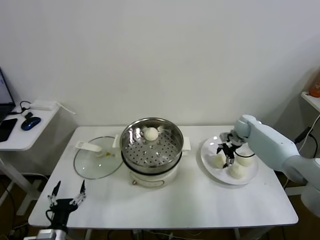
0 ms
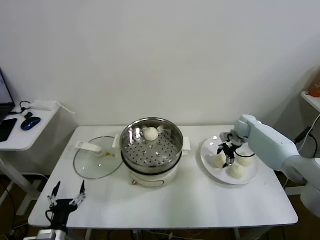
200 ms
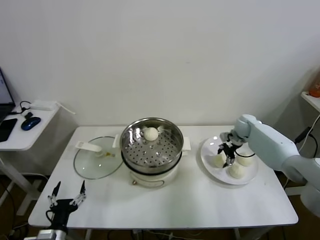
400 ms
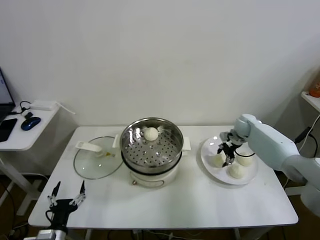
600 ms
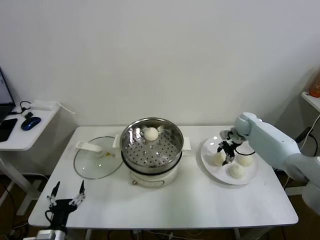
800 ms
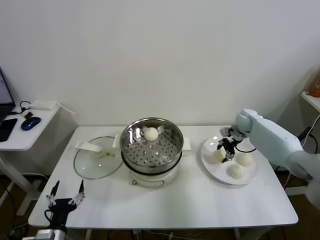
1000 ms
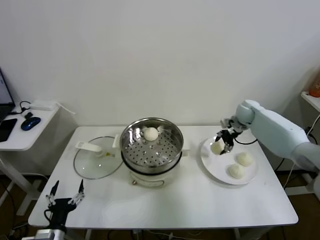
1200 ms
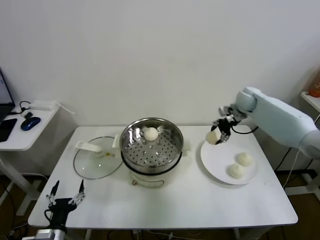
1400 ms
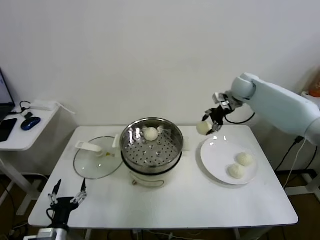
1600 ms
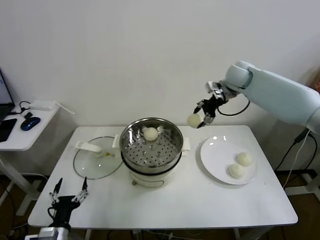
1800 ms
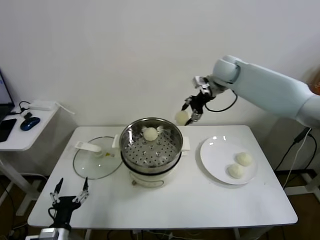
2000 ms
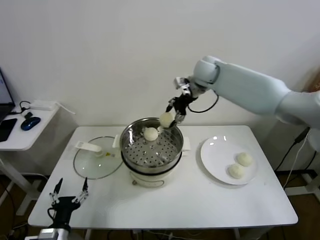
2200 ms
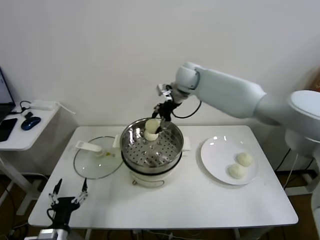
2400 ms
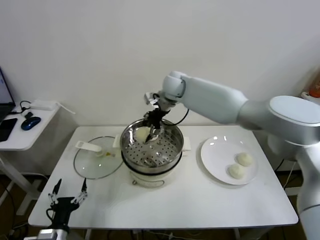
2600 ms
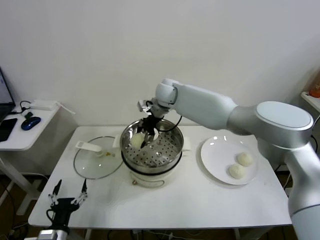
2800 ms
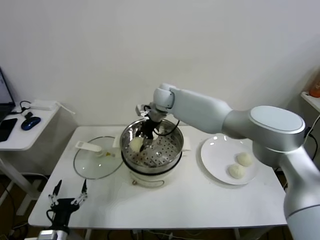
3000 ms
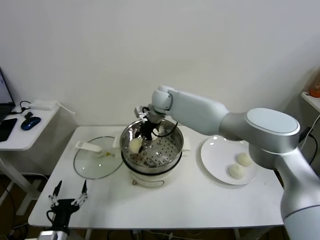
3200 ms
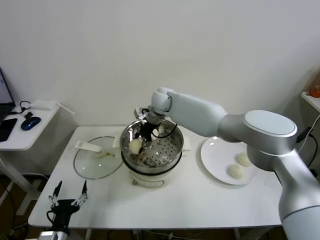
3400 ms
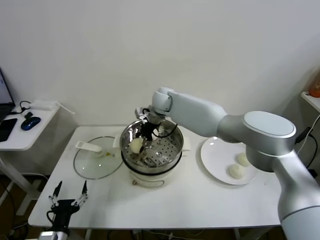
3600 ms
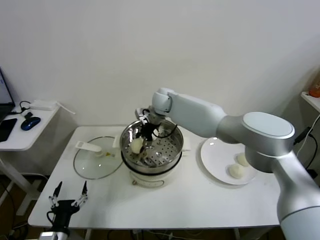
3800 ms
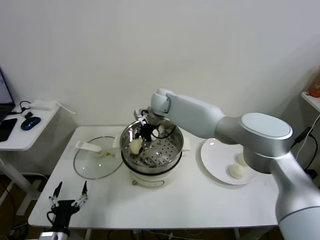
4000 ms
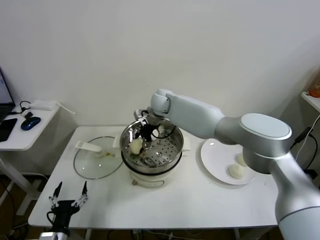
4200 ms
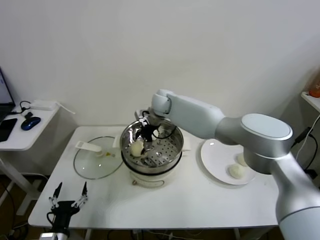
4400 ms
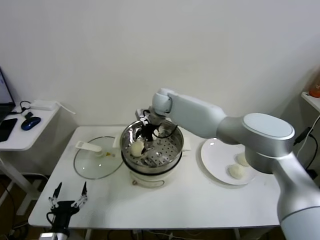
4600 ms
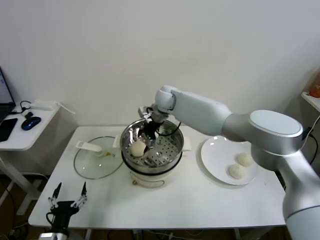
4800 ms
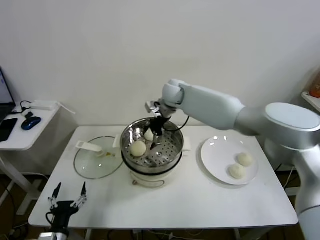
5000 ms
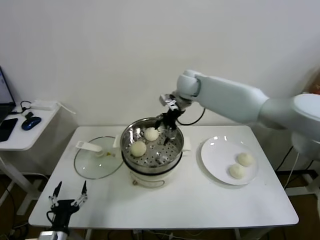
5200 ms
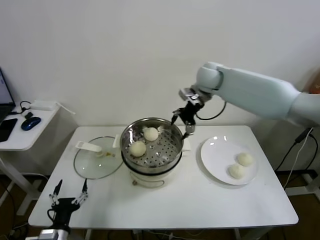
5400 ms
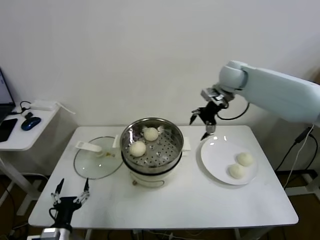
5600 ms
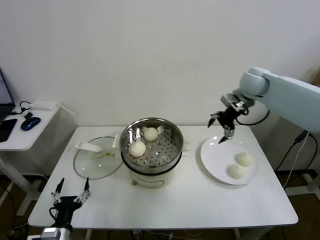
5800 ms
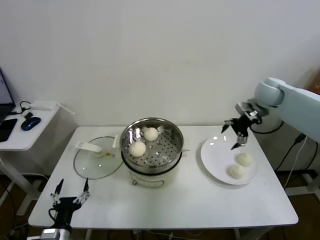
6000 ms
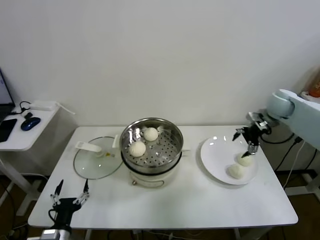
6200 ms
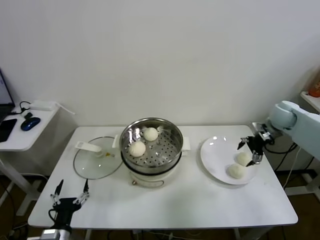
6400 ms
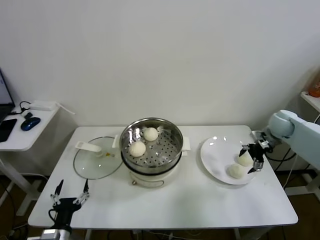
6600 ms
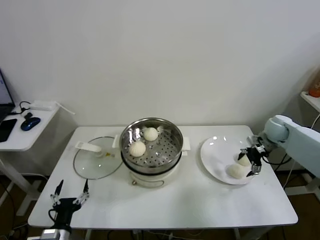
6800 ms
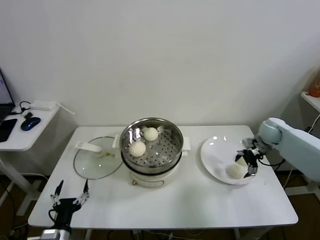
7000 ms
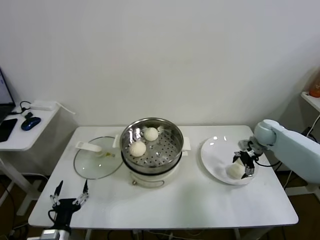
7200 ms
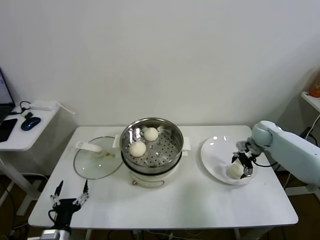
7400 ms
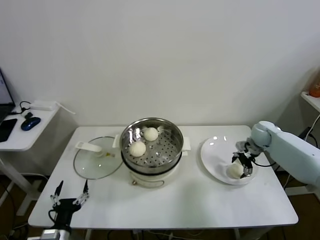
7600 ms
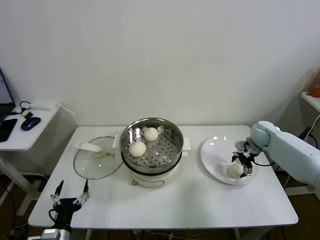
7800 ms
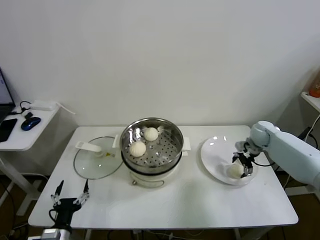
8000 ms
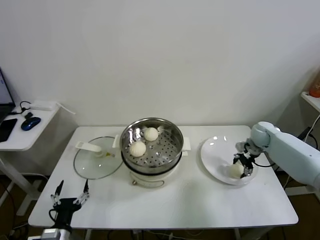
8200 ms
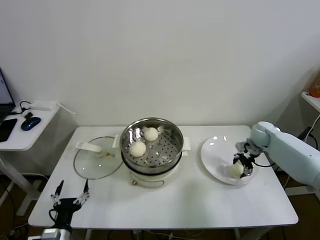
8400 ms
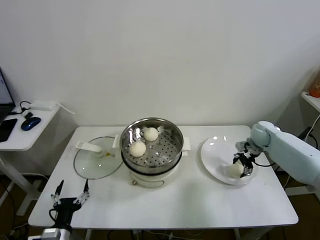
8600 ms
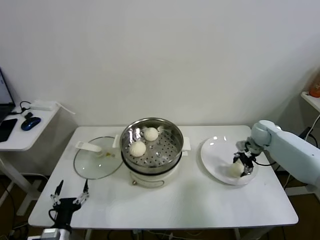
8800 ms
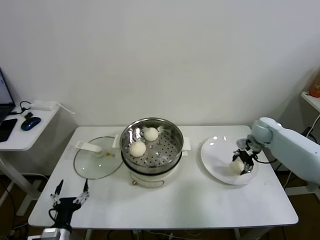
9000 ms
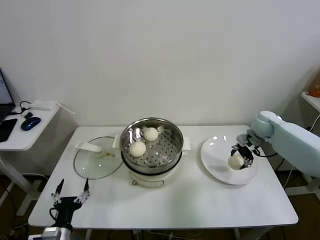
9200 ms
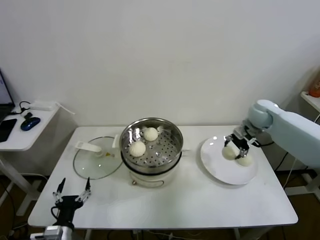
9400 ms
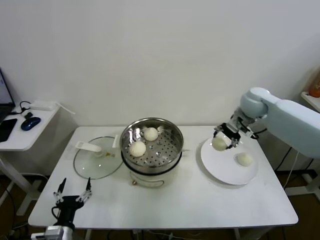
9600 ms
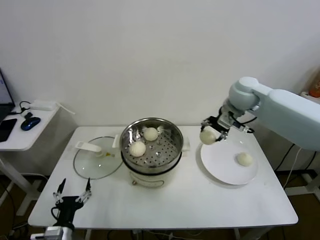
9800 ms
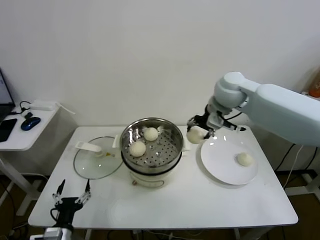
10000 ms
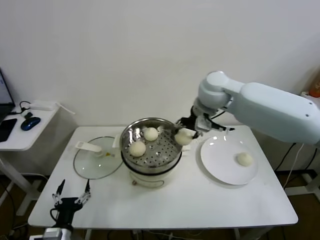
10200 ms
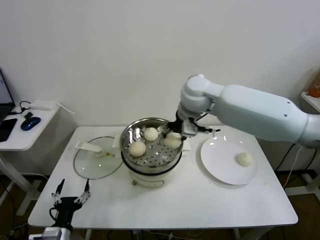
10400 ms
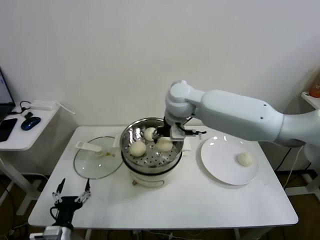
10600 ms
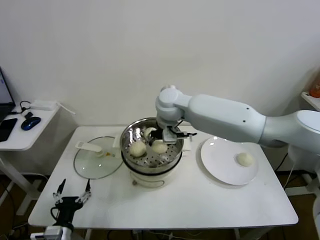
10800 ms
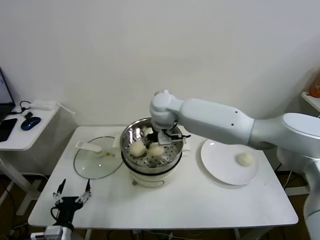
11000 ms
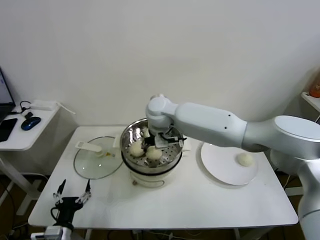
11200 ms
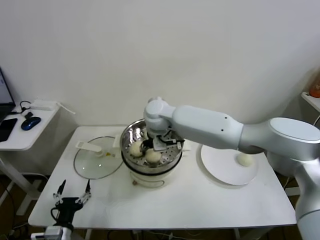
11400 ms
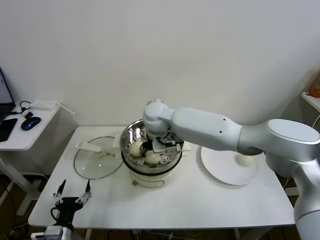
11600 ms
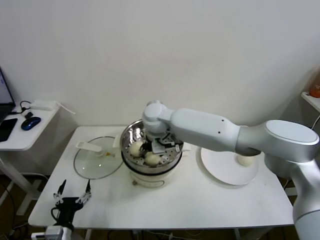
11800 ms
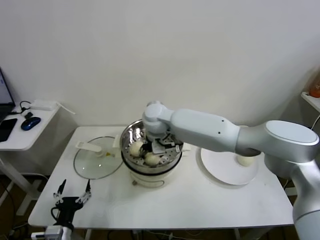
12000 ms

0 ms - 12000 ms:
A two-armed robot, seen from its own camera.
Task of the whole recording: take steamed baozi put them in steamer.
Step, 600 ms - 4400 ms: Place the baozi on the steamer with right gripper.
Step, 4800 ms - 8400 ms: Grasp the baozi in the plate with right gripper.
0 ms - 1600 ms: The right gripper moves upward, about 20 cm, and closes.
1600 ms - 3000 ms: The right gripper heads to the left, covering some 30 cm.
3000 ms - 4400 ms: The right gripper opens its fingers.
4400 ms - 6000 ms: The right gripper heads to the right, covering about 35 cm.
6000 ms - 7600 ms: The right gripper travels downward by about 20 cm.
7600 ms - 9000 ms: The right gripper closes its fingers.
9000 ms - 10400 ms: The right gripper travels to the left and upward by some 35 cm.
10400 ms - 12000 ms: The right gripper heads to the left and downward, covering approximately 15 cm.

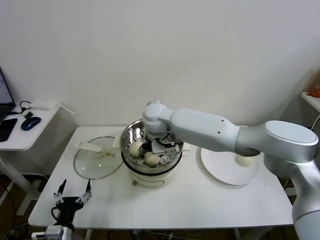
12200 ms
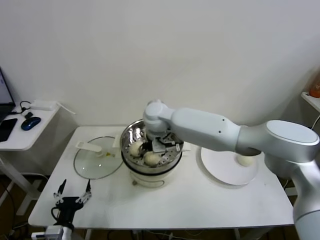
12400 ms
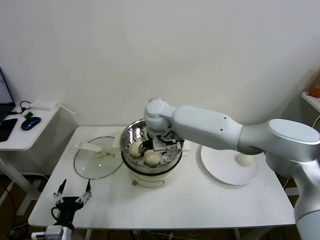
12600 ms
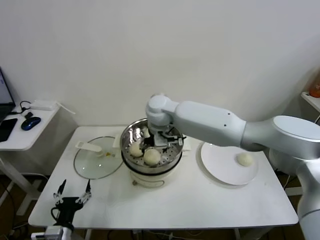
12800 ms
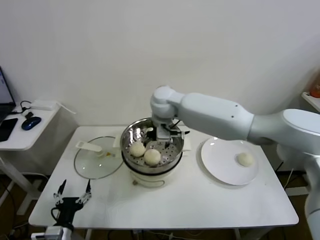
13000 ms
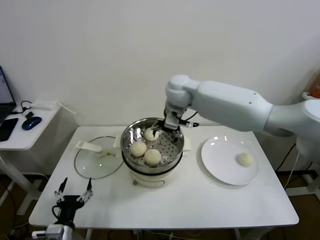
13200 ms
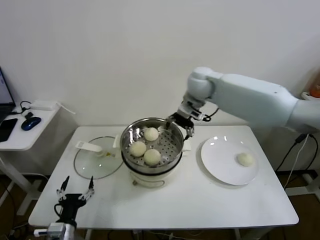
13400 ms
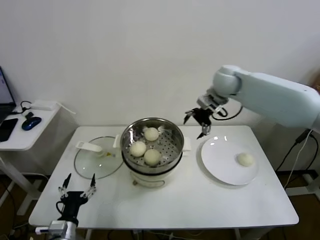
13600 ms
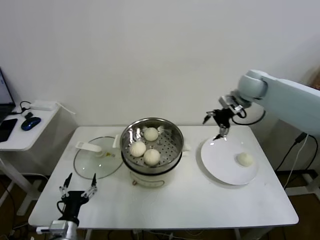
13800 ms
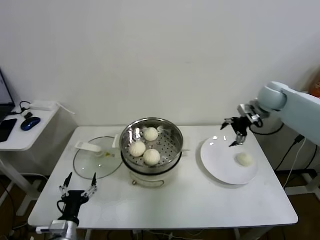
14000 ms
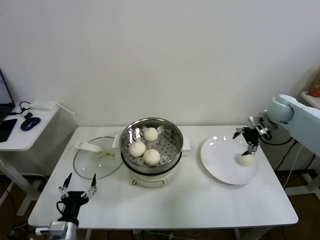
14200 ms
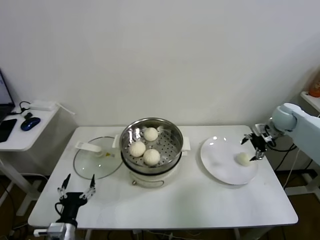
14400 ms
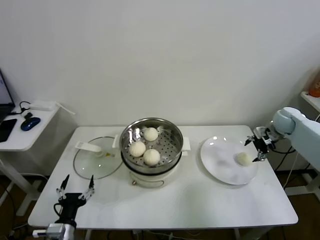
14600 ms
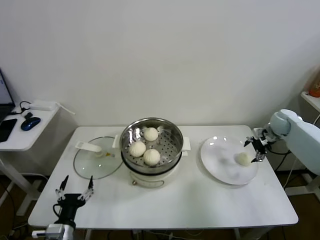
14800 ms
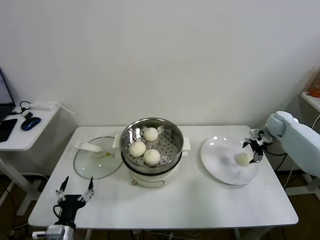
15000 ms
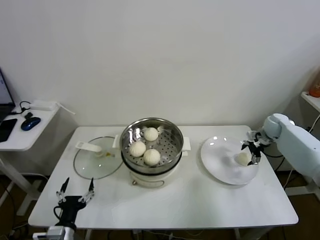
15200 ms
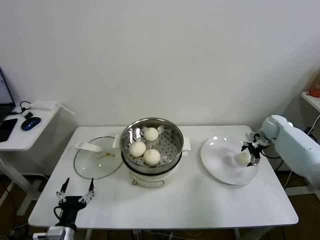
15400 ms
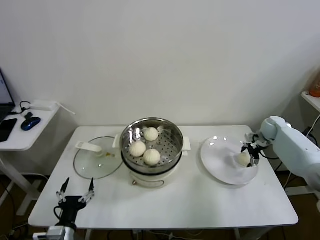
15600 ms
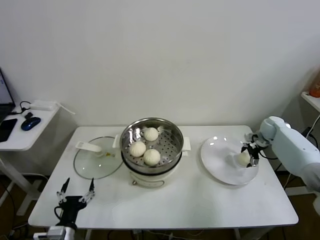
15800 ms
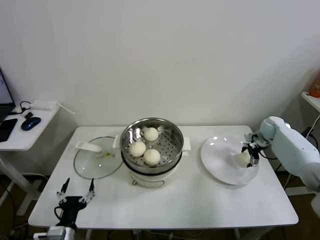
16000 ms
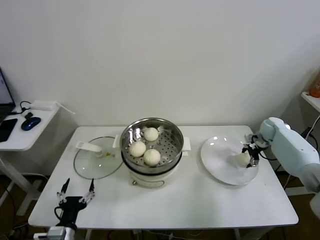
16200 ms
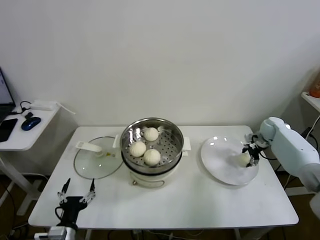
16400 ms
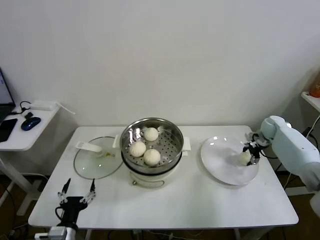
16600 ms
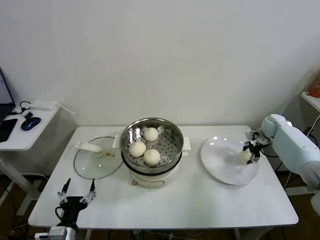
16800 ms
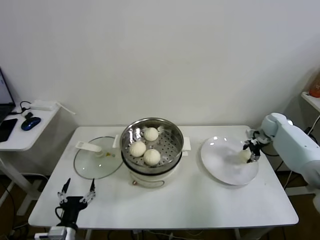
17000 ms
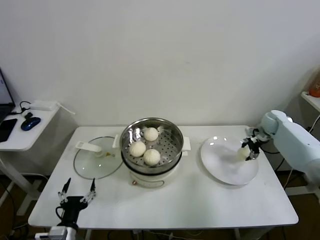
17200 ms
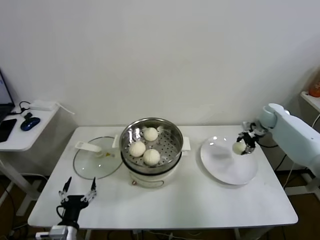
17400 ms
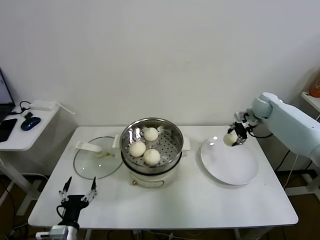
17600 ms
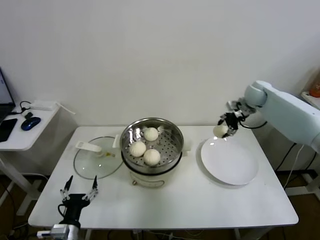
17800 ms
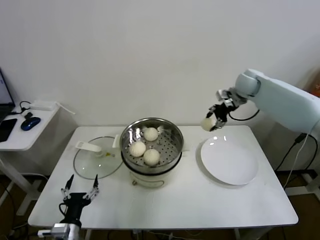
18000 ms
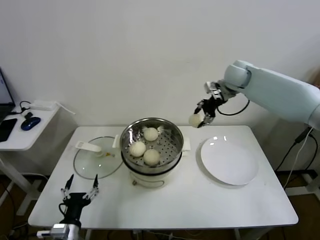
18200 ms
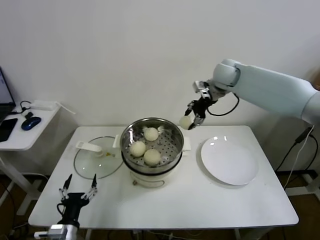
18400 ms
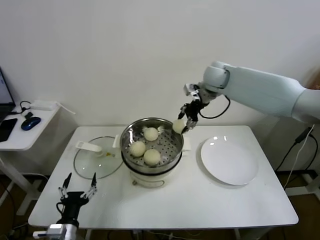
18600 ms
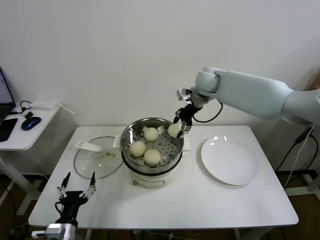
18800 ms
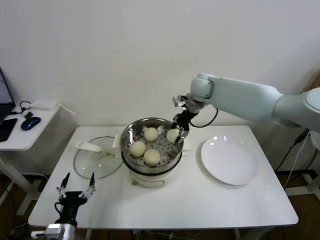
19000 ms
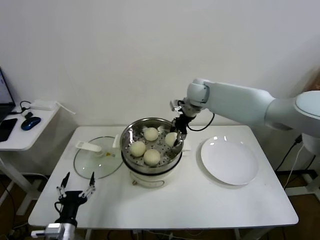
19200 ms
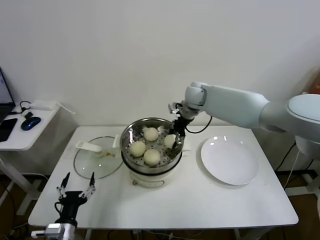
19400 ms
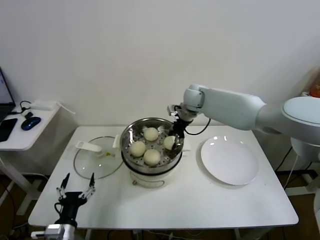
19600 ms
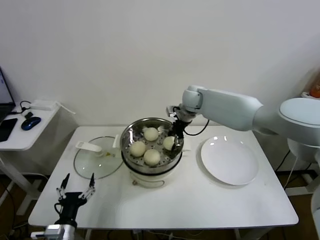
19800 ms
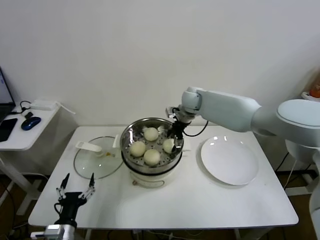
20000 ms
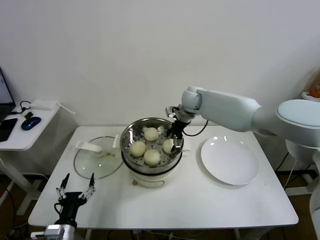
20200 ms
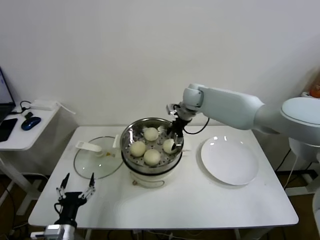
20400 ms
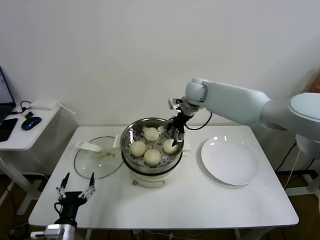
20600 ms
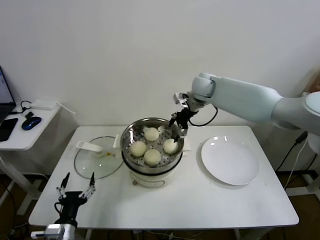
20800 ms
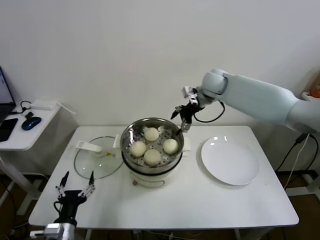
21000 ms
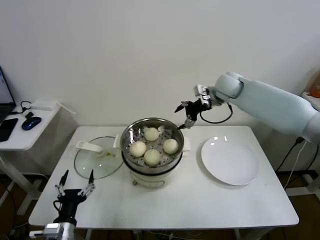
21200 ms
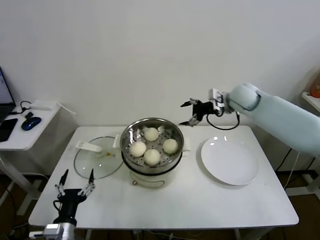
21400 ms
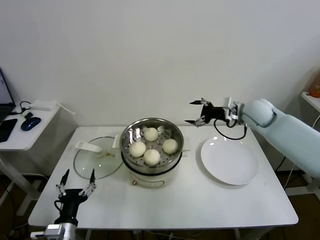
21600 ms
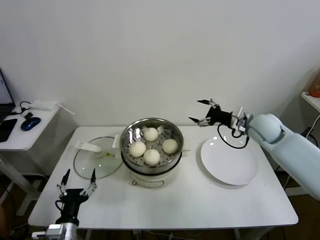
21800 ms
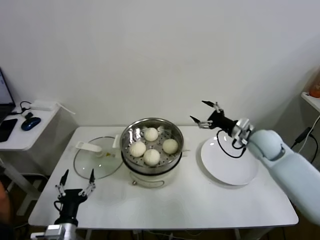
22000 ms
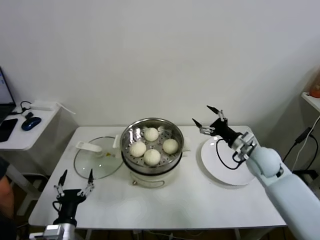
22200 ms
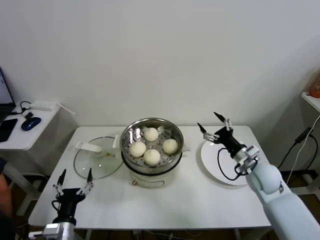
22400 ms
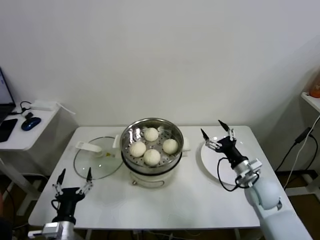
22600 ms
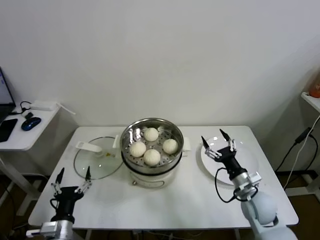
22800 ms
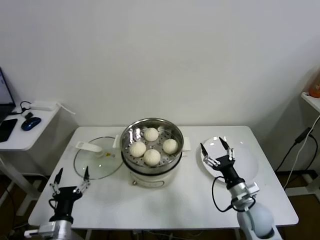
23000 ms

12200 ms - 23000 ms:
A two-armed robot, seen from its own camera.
Task of the whole recording: take steamed baozi put them in steamer.
Step, 12800 ms - 16600 ms: Grasp the baozi in the plate with right gripper.
Step, 16800 ms - 20200 ms: Place the baozi on the steamer with right gripper.
12200 ms - 13800 ms: The right gripper shifts about 30 cm to the right, and opens its fingers.
13800 ms - 15200 ms: The right gripper heads downward and to the right, covering some 25 cm.
15200 ms - 16800 ms: The right gripper closes up.
16800 ms - 18400 ms: The right gripper goes roughly 35 cm to the left and upward.
18400 ms - 20000 ms: The right gripper goes some 15 cm to the left and downward, and opens its fingers.
20000 ms - 21400 ms: The right gripper shifts approximately 15 cm to the right, and opens its fingers.
21400 ms - 23000 ms: The right gripper shifts approximately 40 cm backward and downward.
